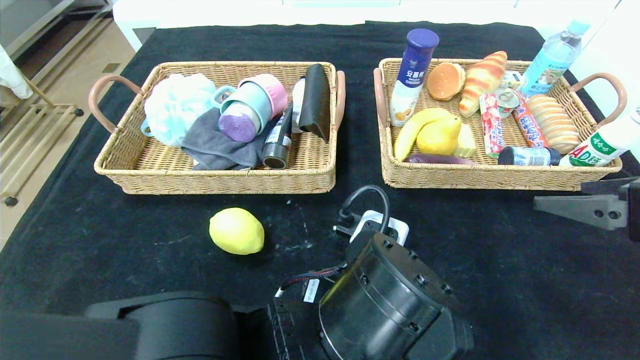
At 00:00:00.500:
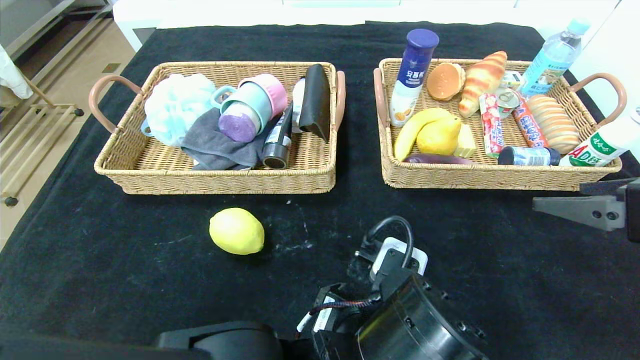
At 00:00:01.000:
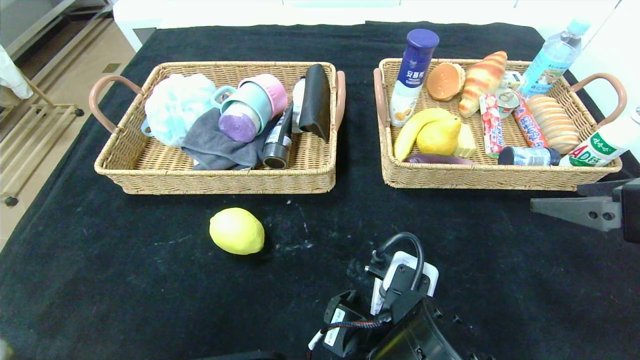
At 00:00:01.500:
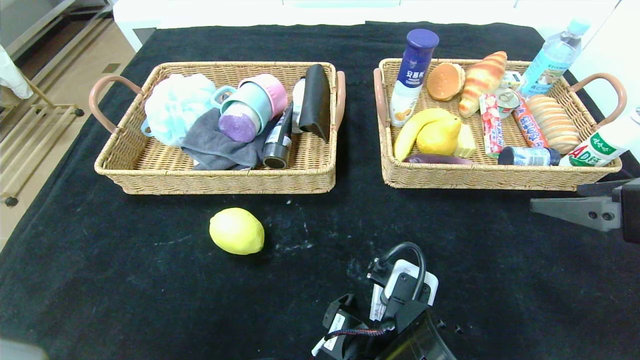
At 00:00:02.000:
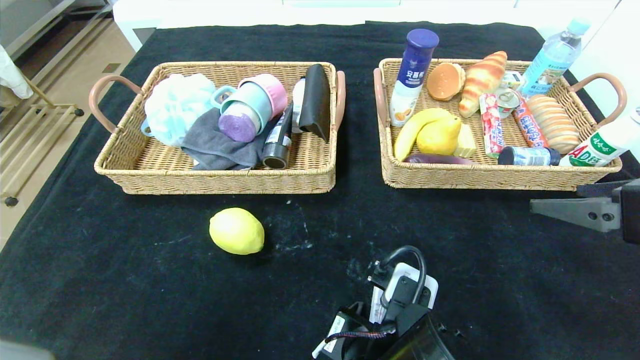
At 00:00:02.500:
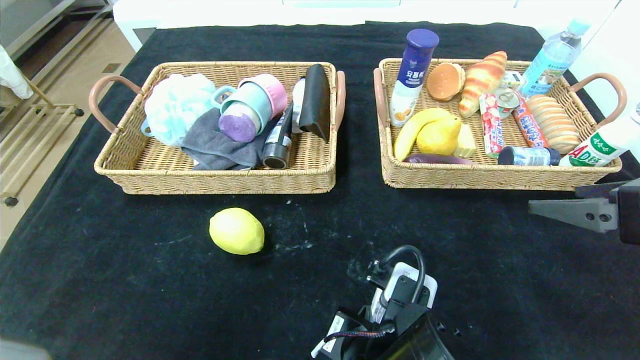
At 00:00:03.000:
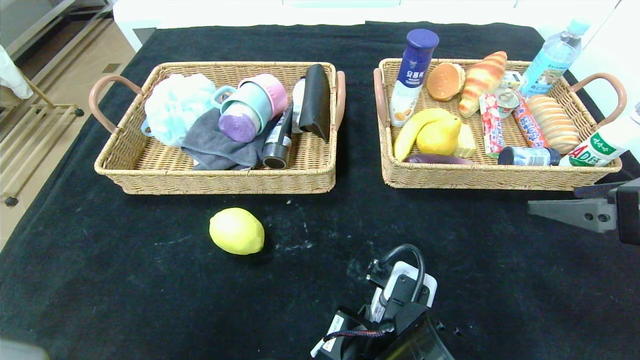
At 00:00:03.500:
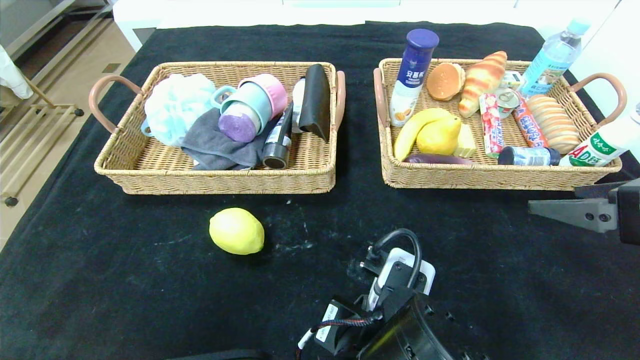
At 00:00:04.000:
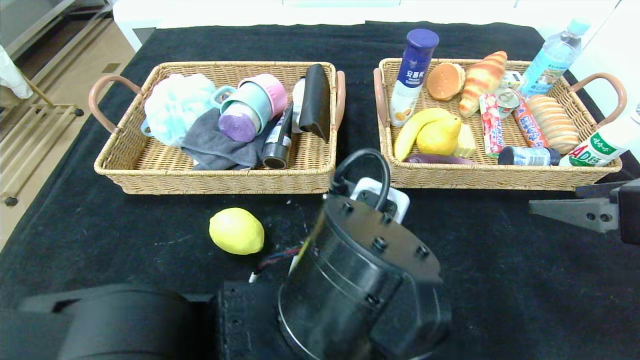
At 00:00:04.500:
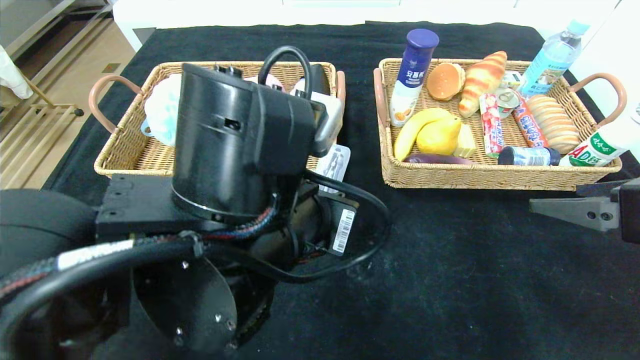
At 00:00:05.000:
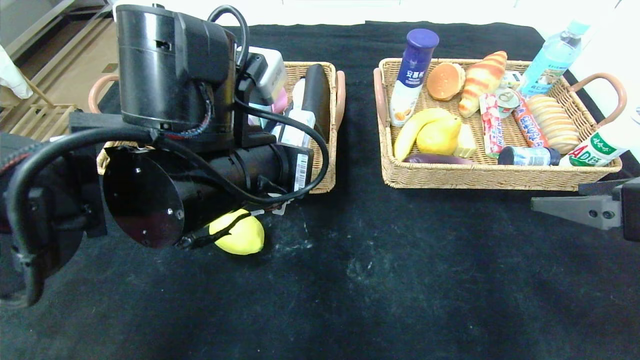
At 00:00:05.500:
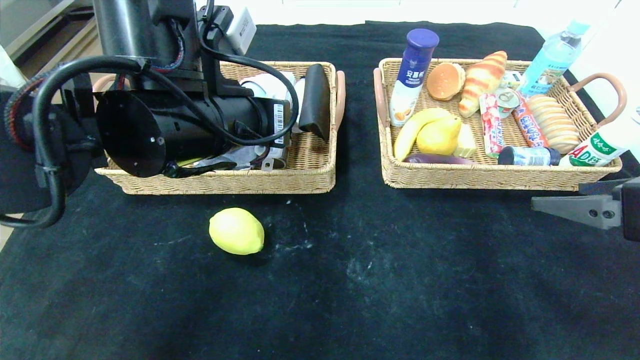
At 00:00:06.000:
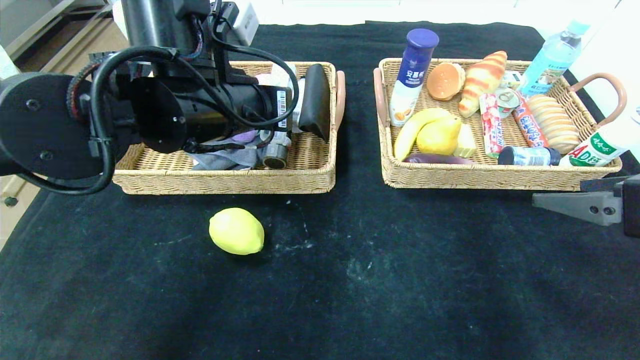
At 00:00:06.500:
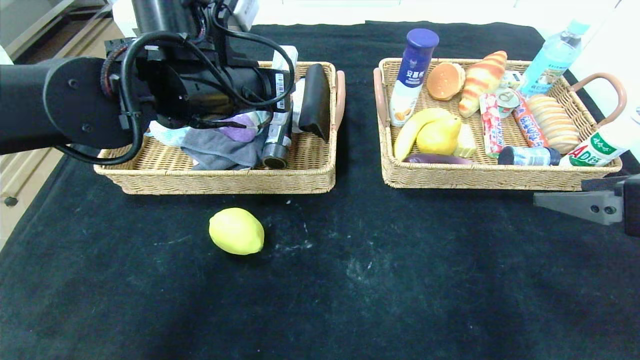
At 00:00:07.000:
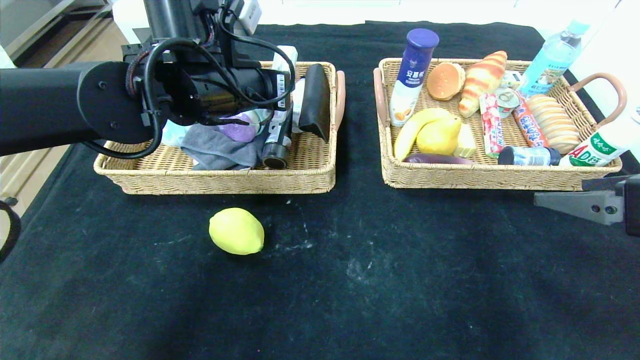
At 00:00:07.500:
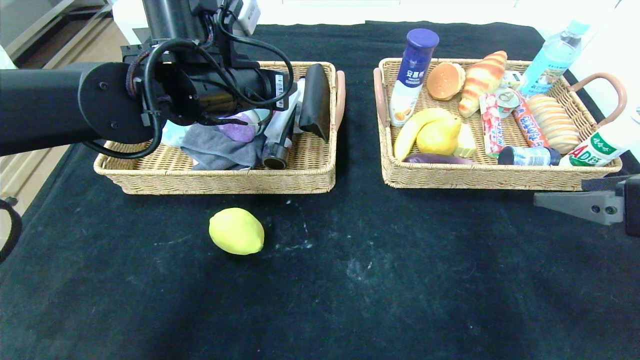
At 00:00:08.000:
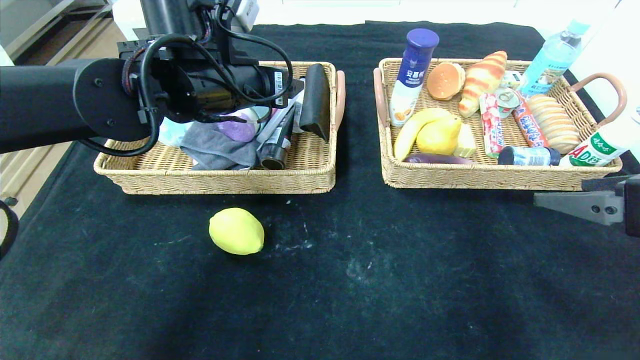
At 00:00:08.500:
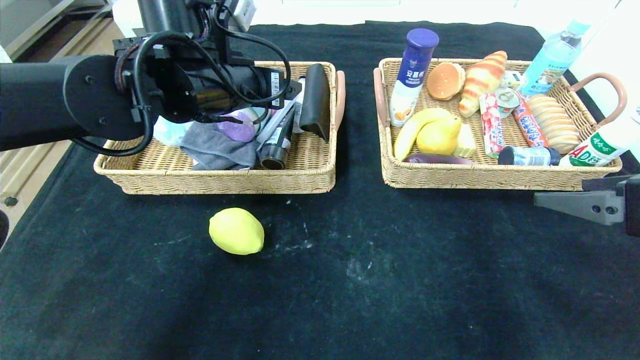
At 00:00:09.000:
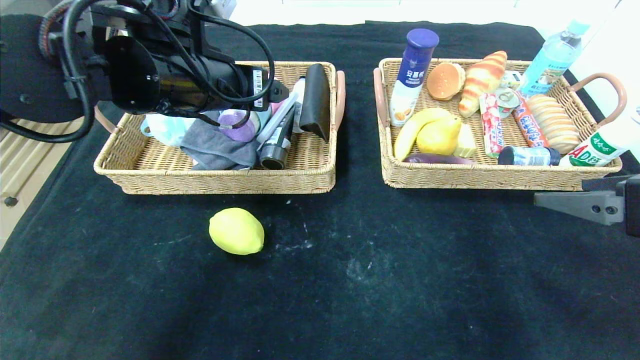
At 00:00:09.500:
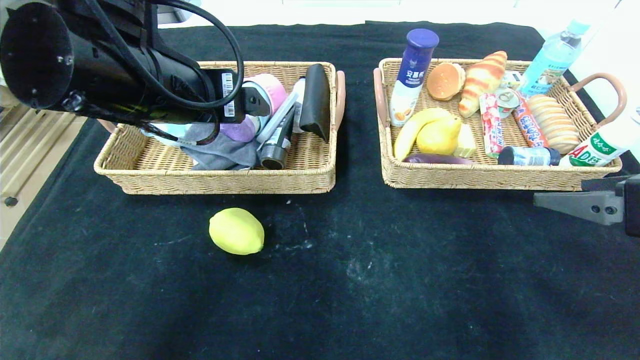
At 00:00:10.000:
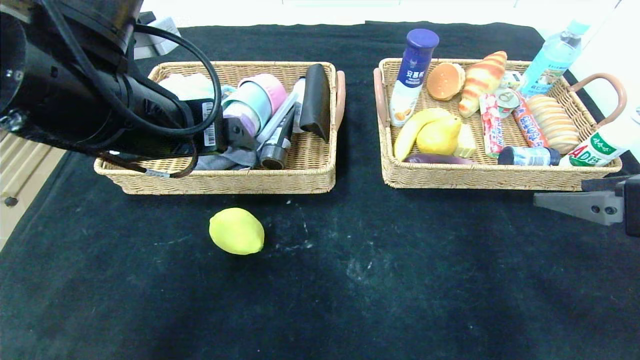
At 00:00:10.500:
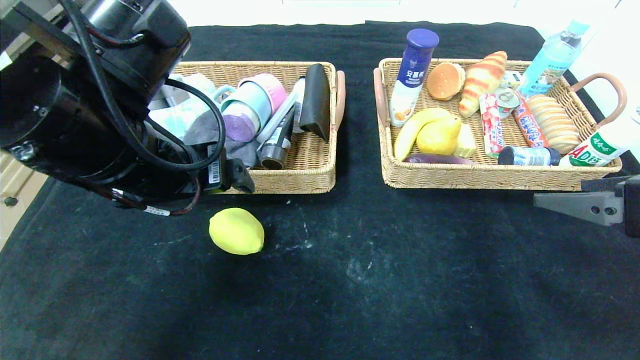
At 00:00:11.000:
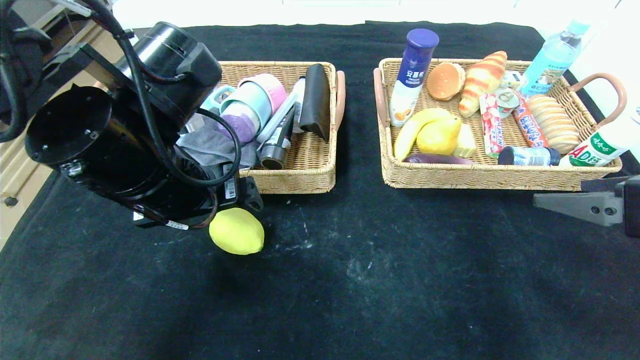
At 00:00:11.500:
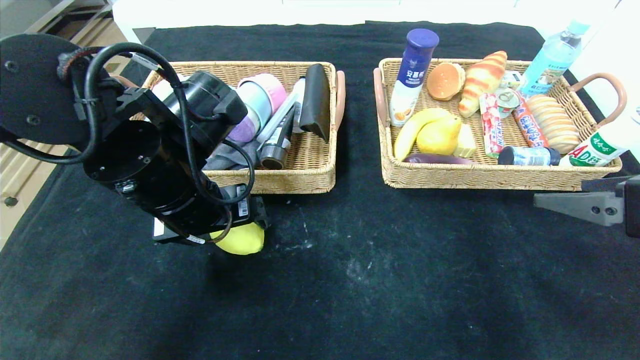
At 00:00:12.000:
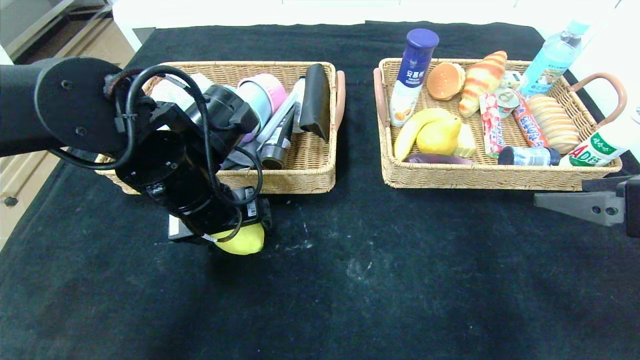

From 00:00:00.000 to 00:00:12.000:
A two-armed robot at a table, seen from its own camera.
Step, from 00:00:00.000 to 00:00:07.500: Grasp the compass and put it in the left basket.
From 00:00:00.000 to 00:00:02.000: The left gripper ends up roughly 5 cm from where it was, and closes its fingers.
From 00:00:02.000 to 00:00:04.000: The left gripper moves upward, some 10 cm, and closes its fingers.
From 00:00:04.000 to 00:00:06.000: The left gripper travels forward, upward and to the left by about 20 cm.
From 00:00:06.000 to 00:00:08.000: The left gripper is displaced forward by approximately 5 cm, and opens its fingers.
From 00:00:08.000 to 00:00:10.000: The left gripper moves backward, about 10 cm.
From 00:00:10.000 to 00:00:12.000: The left gripper moves downward and forward, some 10 cm.

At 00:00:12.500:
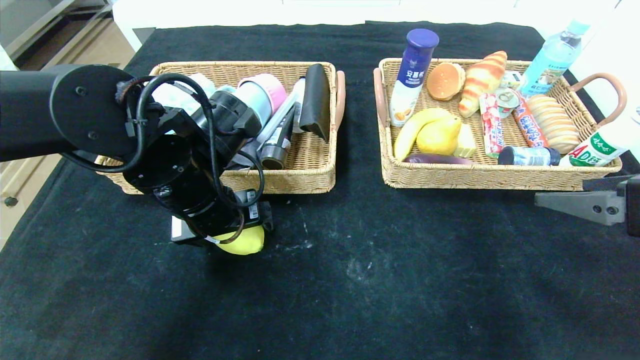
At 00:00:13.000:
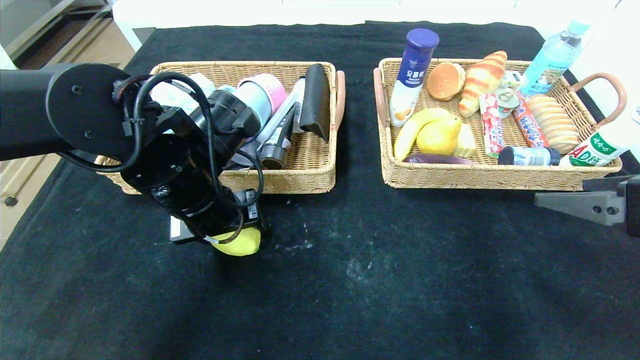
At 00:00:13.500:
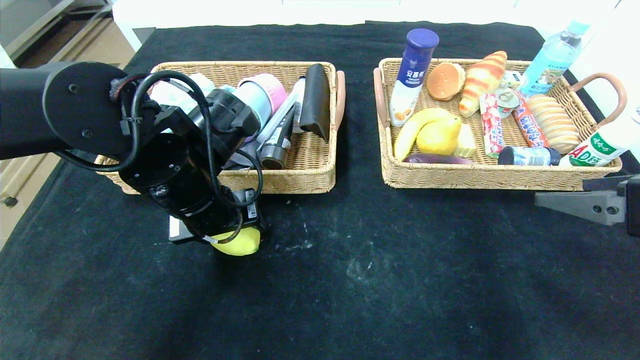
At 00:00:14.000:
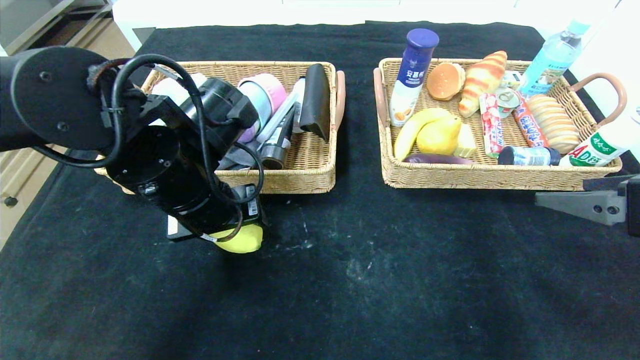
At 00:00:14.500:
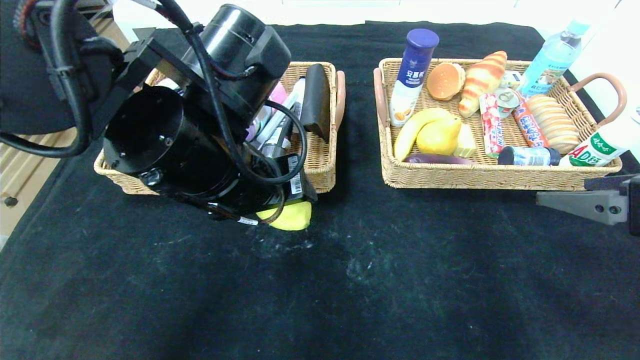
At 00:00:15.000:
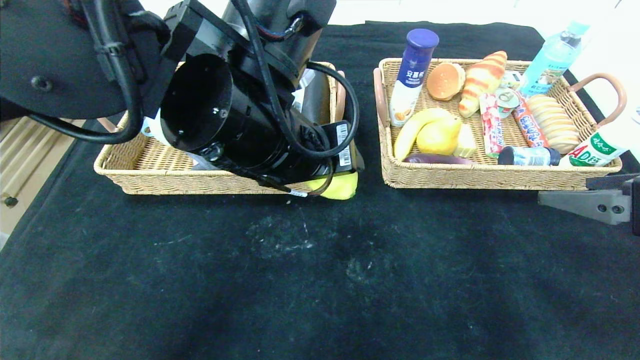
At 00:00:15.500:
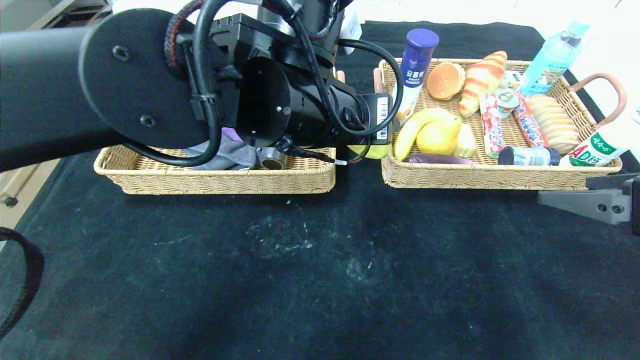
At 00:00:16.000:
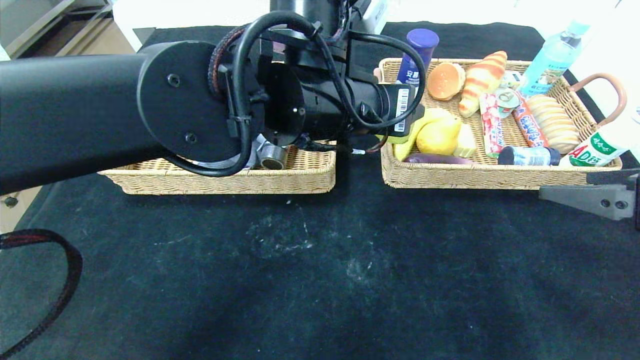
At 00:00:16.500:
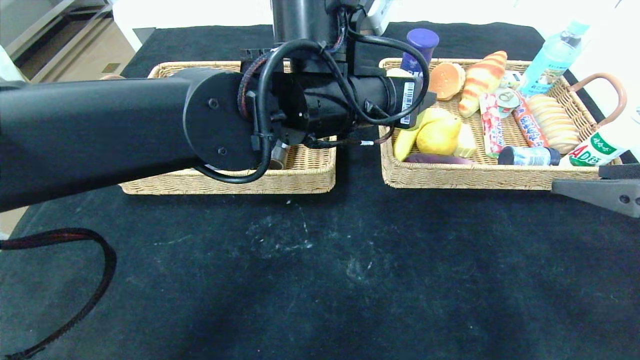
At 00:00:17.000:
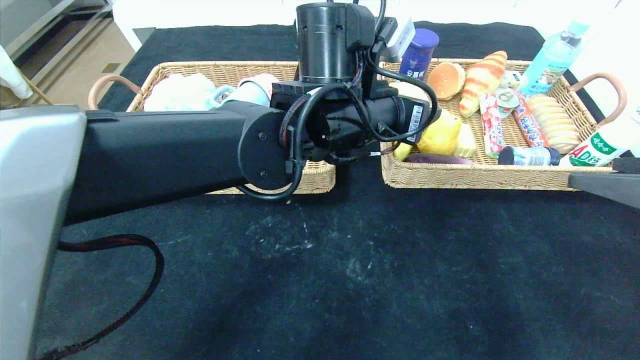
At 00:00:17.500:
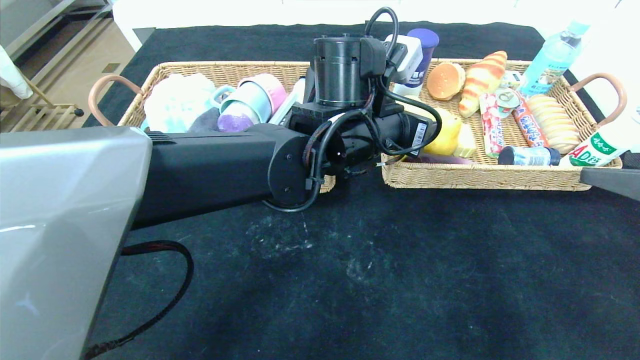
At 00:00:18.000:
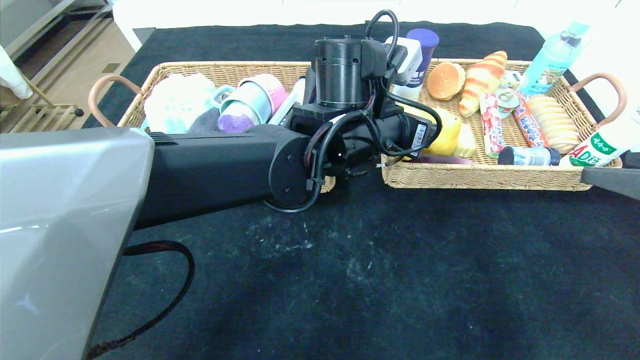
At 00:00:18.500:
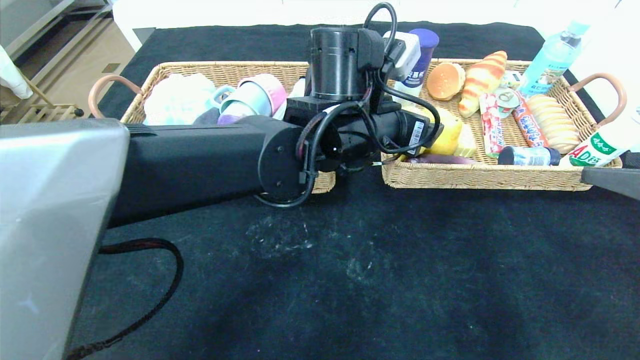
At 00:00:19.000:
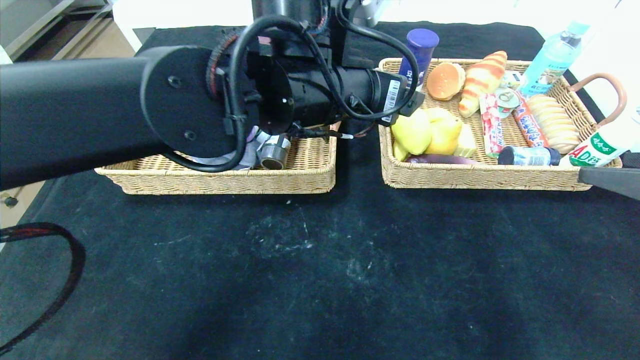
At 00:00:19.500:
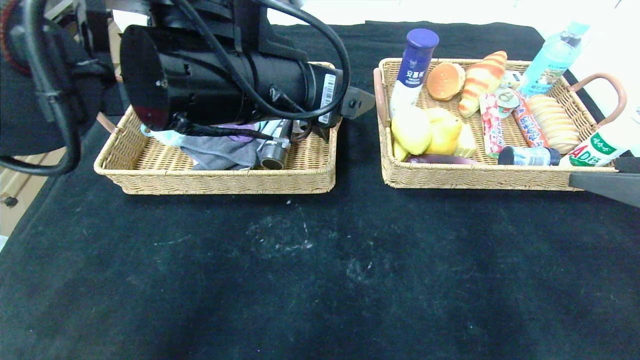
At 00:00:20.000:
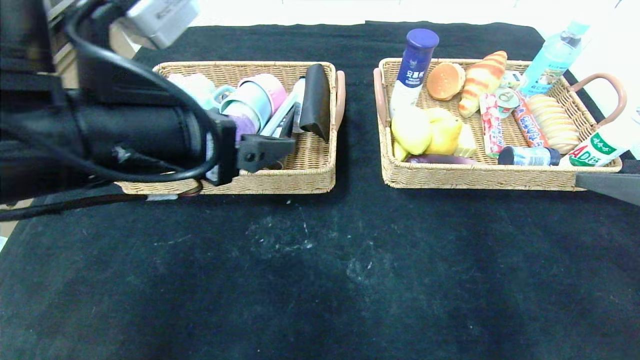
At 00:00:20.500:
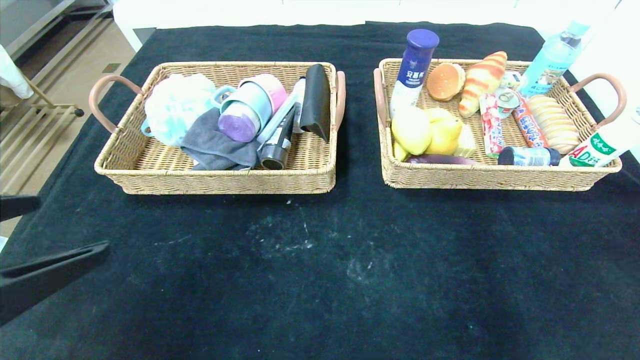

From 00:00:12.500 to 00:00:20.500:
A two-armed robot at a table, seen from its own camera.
From 00:00:12.500 to 00:00:14.500: The left gripper moves to the right and upward, about 10 cm, and closes.
From 00:00:14.500 to 00:00:16.500: The left gripper travels to the right and forward by approximately 10 cm.
From 00:00:16.500 to 00:00:18.500: The left gripper opens its fingers.
From 00:00:18.500 to 00:00:20.500: The right gripper travels backward by about 10 cm, while the left gripper heads to the left and backward, covering some 40 cm.
